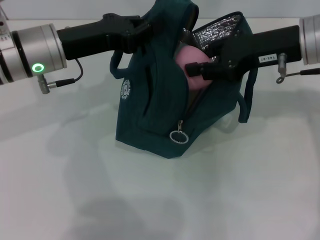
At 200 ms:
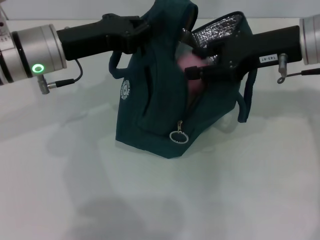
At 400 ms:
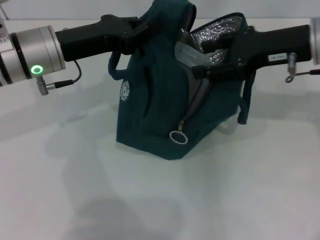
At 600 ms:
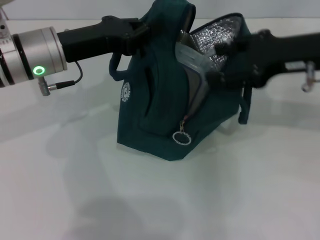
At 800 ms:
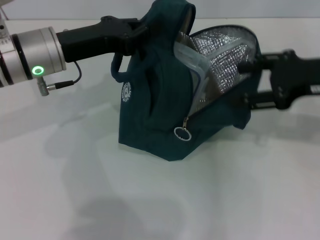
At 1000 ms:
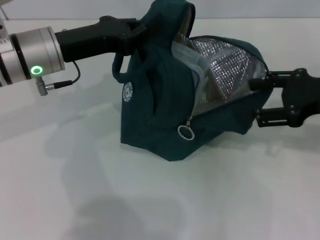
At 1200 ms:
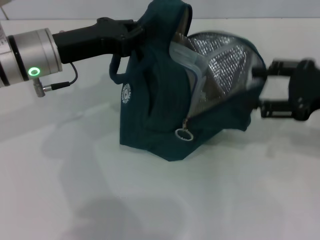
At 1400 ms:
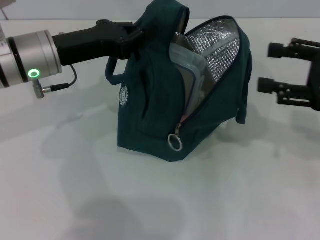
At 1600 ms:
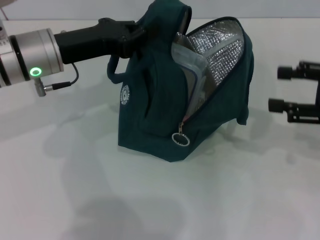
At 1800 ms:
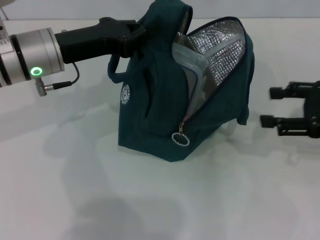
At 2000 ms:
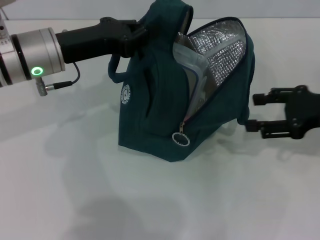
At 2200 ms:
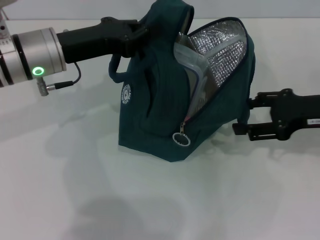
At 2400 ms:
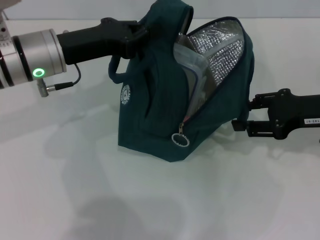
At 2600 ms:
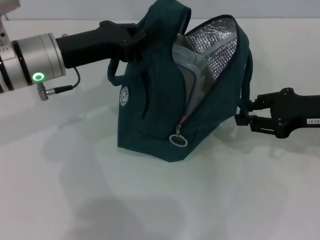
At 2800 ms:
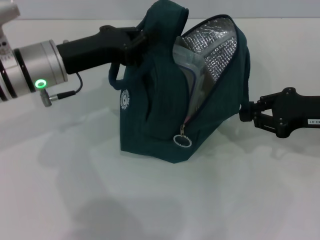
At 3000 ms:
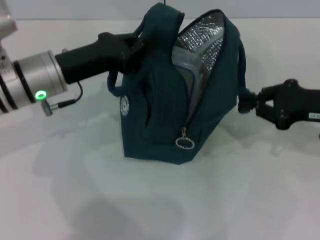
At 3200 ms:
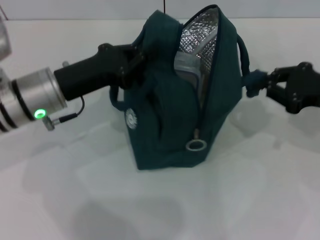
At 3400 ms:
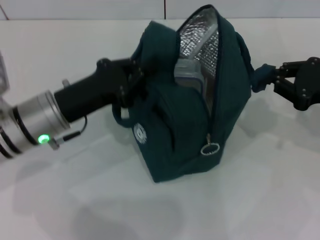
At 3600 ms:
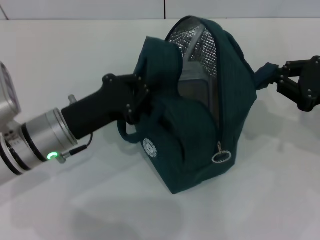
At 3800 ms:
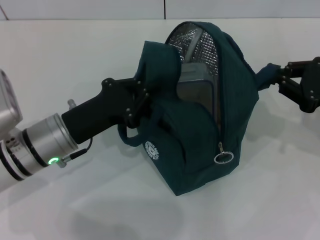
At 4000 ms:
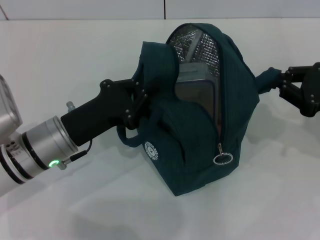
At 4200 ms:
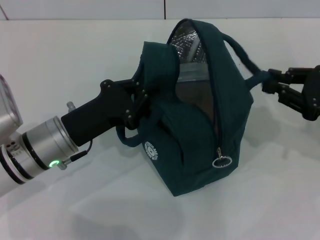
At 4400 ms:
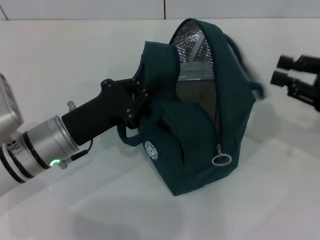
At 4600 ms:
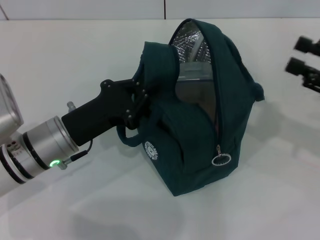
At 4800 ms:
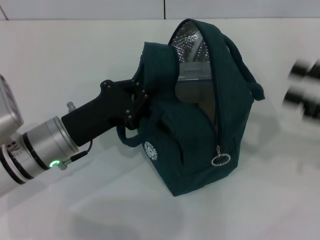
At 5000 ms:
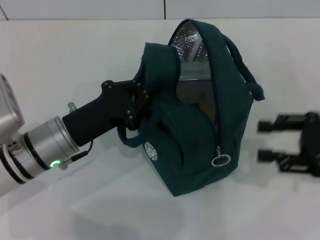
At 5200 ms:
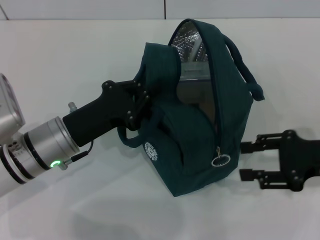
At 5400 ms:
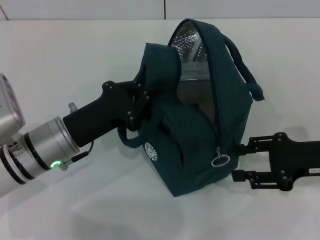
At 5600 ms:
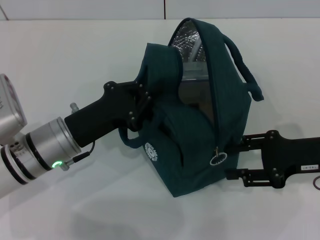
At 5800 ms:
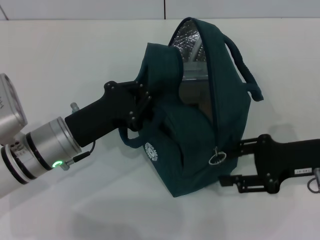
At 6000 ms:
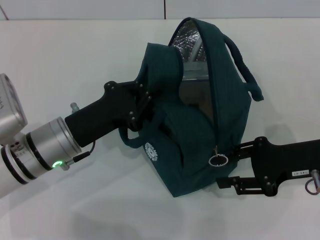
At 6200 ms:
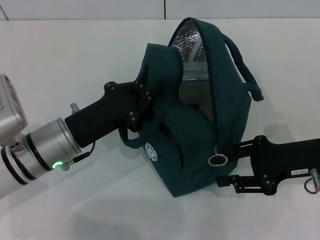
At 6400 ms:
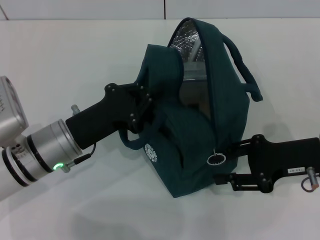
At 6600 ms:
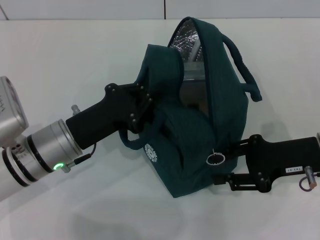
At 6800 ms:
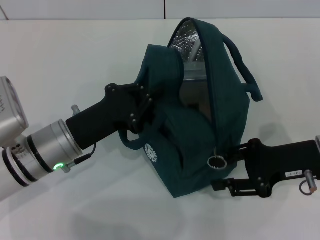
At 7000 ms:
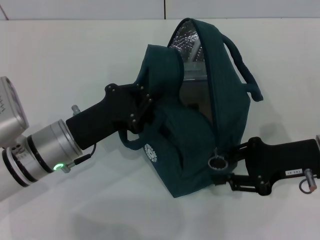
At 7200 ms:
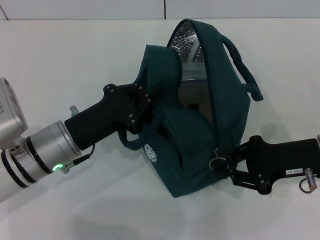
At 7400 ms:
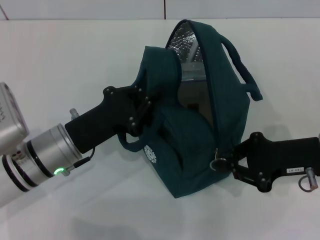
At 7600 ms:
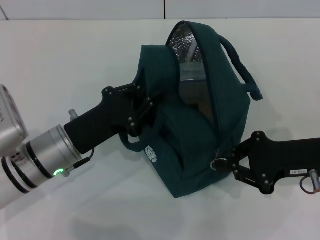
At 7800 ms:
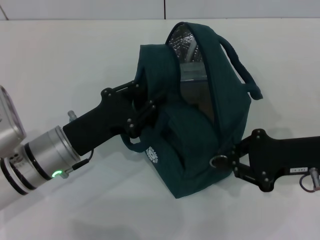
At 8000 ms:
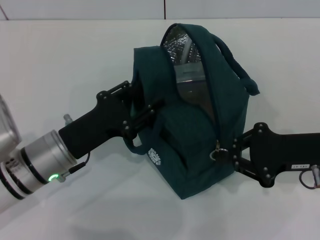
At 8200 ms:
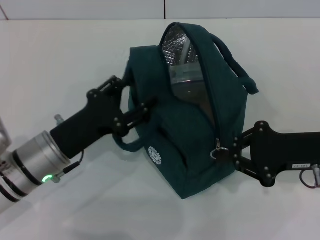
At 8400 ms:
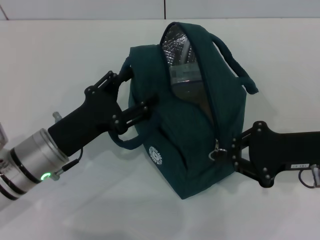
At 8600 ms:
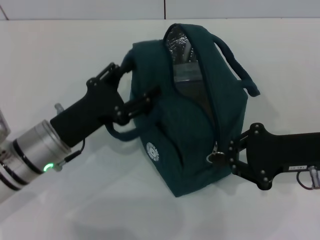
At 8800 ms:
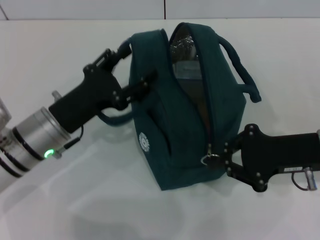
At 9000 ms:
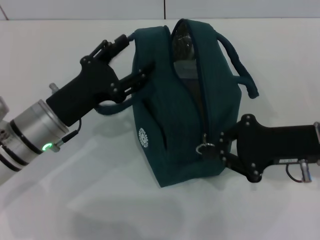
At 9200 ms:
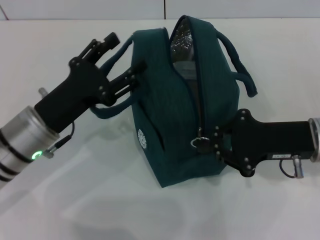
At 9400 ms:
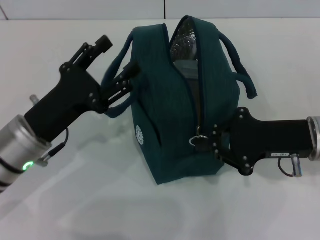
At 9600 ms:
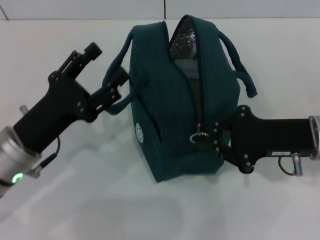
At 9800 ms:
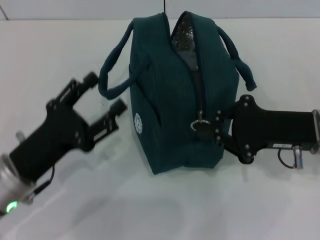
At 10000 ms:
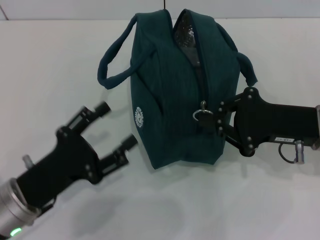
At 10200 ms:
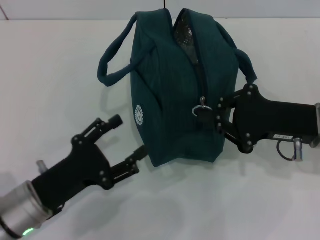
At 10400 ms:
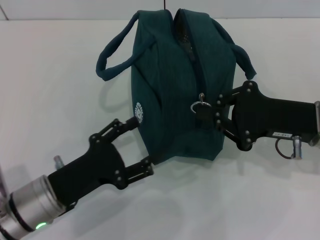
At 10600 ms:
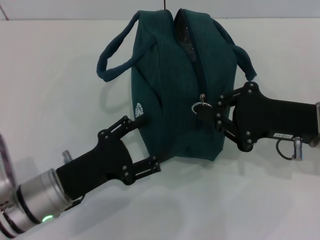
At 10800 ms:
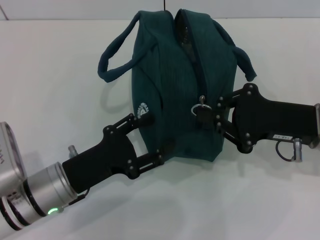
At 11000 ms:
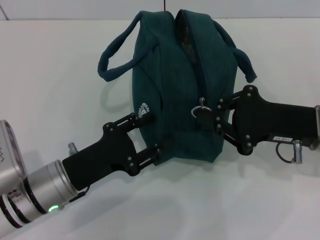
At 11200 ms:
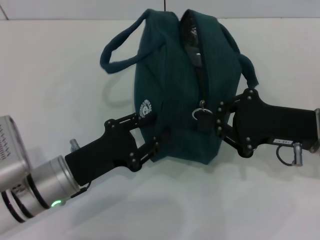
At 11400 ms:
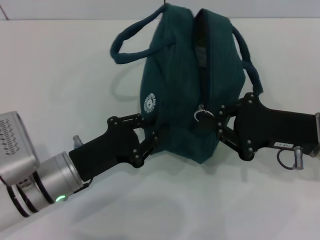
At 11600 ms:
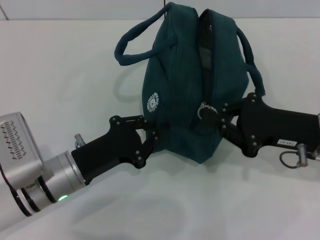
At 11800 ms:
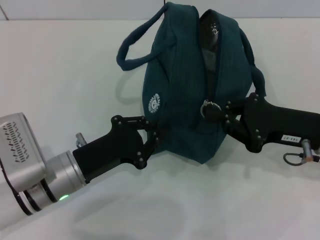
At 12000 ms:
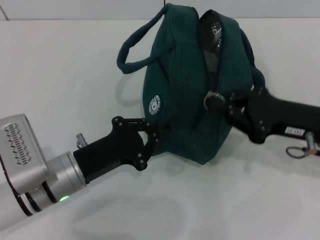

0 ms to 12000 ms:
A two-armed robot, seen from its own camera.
Step, 800 ms to 4200 ms: Hold the lunch bag with your right hand.
Step, 4600 ms to 8800 ms: Hold the lunch bag with your left hand.
0 ms to 1600 ms: The right gripper heads to the right and backward, covering roughly 15 cm, and opens.
1600 ms to 3000 ms: The right gripper goes some 5 cm downward, and closes.
3000 ms to 4400 ms: The left gripper shifts roughly 10 cm backward and downward.
4400 ms to 6000 ms: The right gripper is displaced to the left by approximately 5 cm, and opens.
6000 ms to 7600 ms: The right gripper closes.
7600 ms to 9000 ms: The left gripper opens its fingers.
9000 ms to 10400 ms: The left gripper shifts roughly 10 cm backward.
10400 ms to 12000 ms: The left gripper closes.

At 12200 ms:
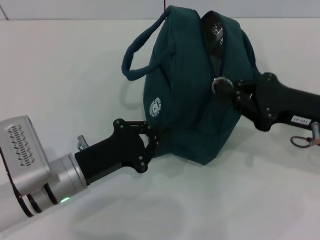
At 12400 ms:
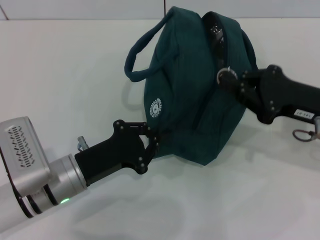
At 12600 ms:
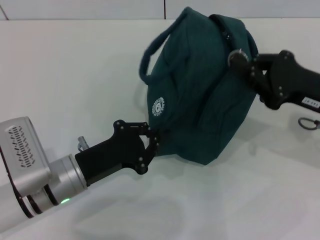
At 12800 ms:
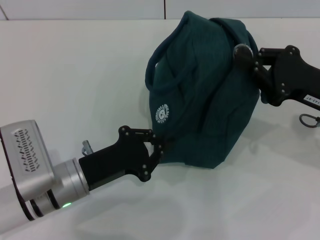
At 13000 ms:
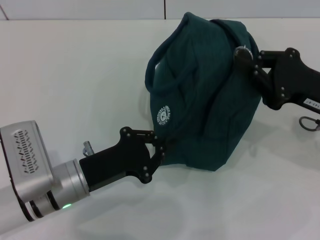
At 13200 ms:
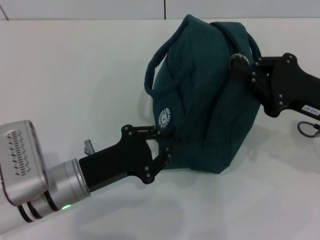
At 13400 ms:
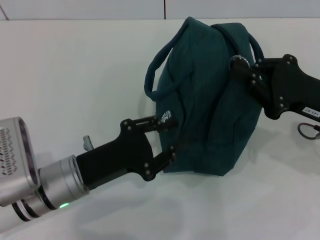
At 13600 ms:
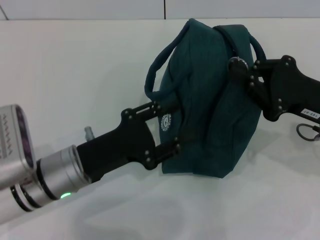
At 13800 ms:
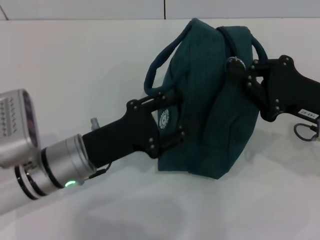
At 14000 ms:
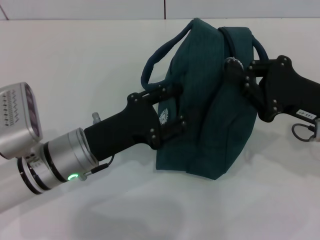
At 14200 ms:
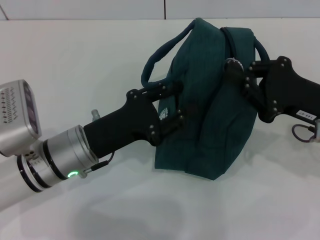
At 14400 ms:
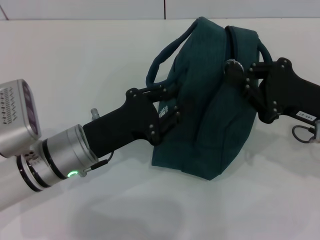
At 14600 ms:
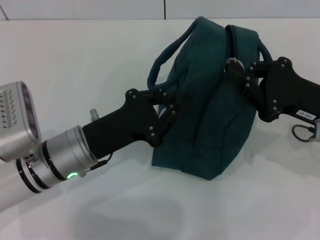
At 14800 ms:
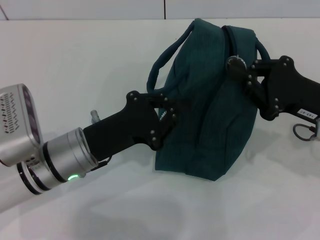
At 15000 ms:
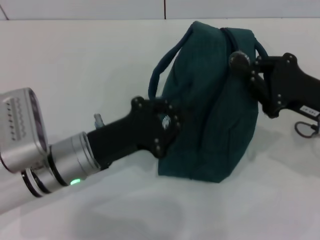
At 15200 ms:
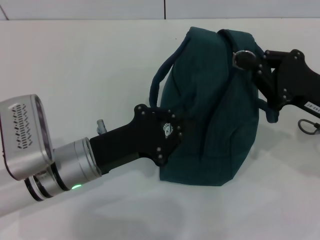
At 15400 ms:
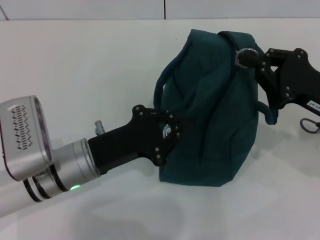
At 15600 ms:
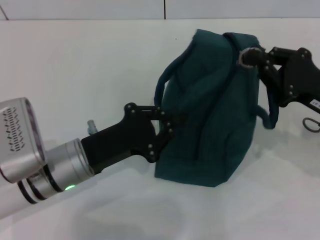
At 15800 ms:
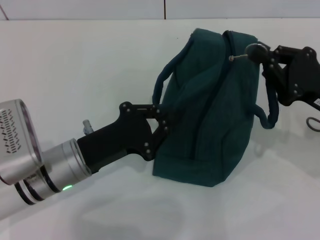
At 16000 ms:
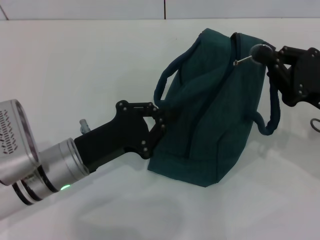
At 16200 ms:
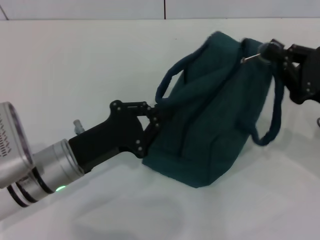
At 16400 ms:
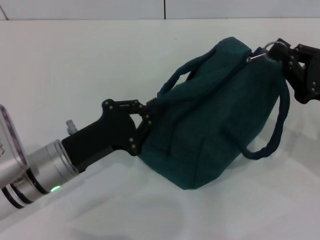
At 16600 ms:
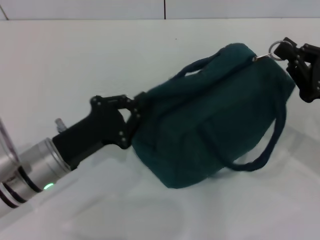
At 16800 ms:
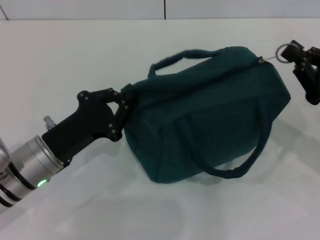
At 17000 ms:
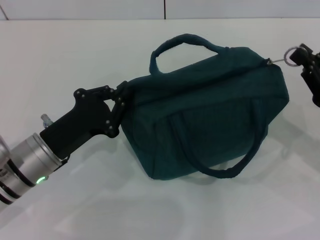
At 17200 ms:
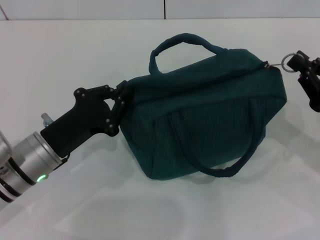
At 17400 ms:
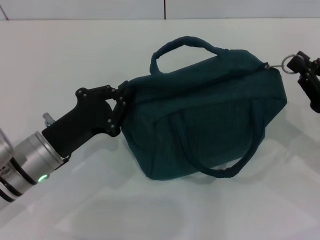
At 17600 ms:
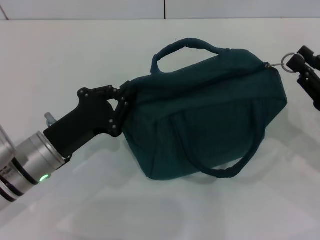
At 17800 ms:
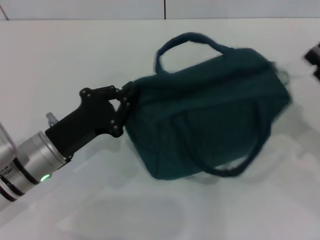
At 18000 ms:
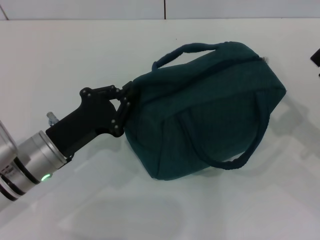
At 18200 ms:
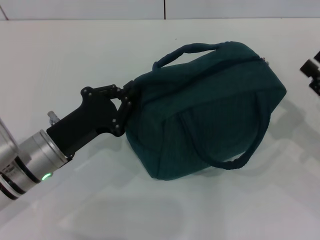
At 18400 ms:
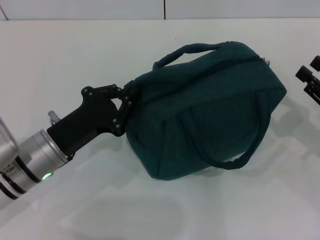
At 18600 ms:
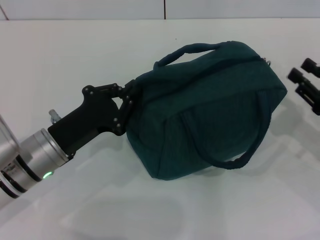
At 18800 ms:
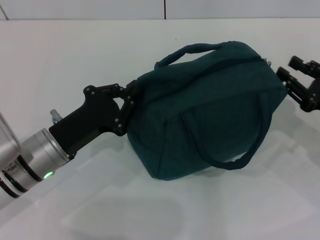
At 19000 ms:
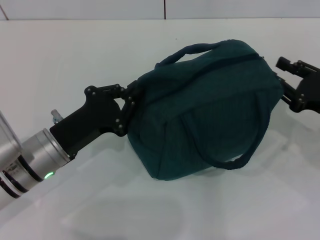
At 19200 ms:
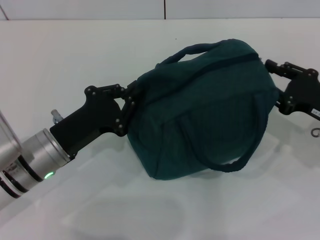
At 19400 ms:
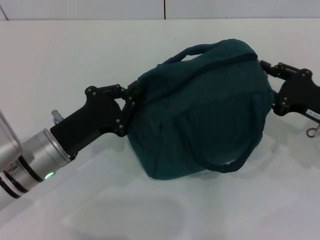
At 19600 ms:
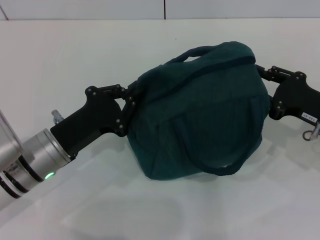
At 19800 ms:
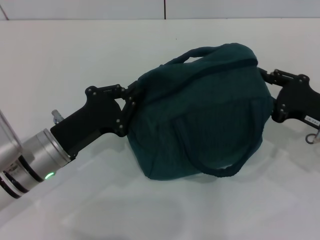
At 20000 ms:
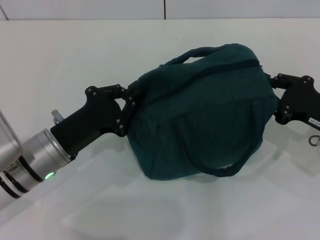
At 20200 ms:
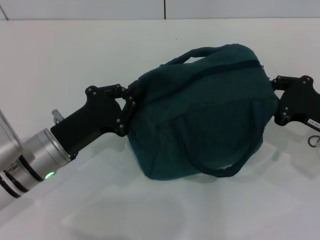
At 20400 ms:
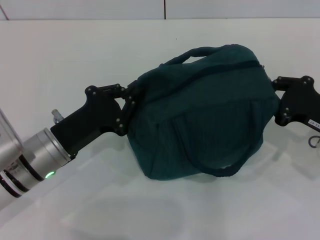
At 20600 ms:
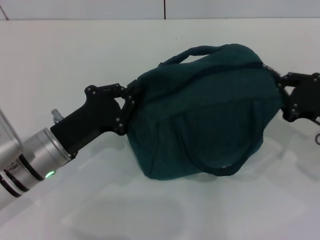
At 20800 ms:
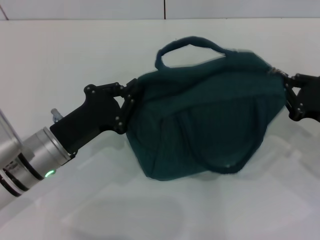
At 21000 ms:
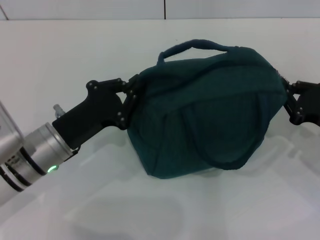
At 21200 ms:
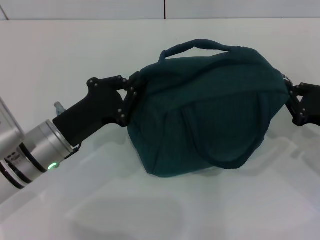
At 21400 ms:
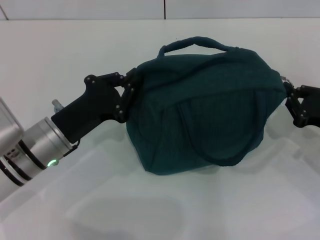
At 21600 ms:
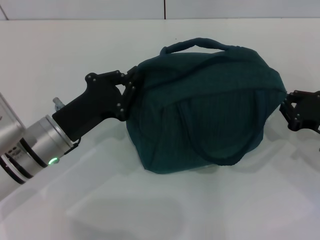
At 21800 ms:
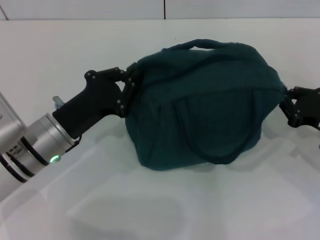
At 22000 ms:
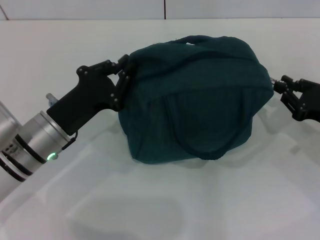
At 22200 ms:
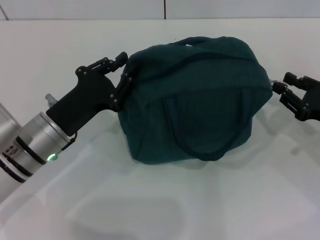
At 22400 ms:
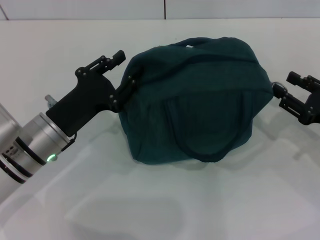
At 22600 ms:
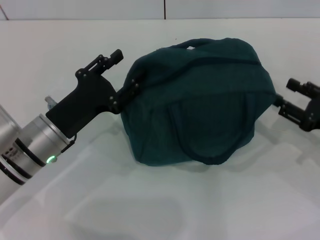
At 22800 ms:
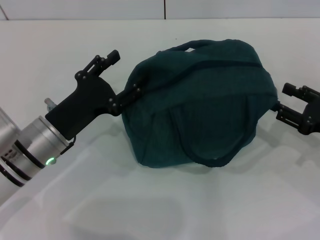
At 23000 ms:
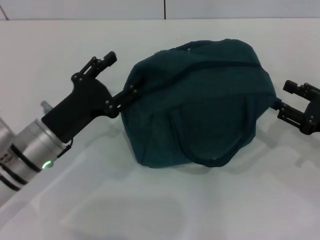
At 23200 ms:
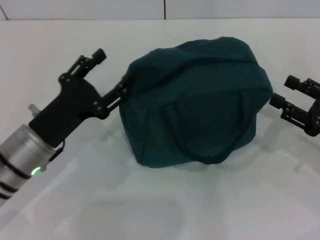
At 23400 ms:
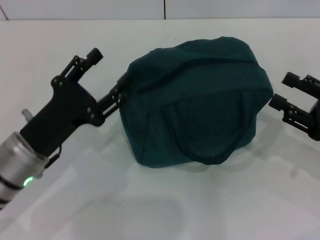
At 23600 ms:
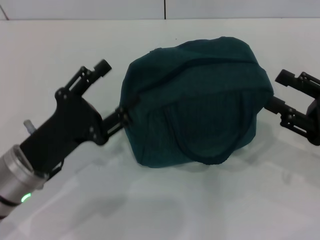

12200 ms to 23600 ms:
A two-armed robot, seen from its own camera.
Step, 12200 ms to 22200 ms: Hold the lunch bag with your left hand.
Step, 22400 ms to 23200 ms: Zip up the lunch bag with your right hand.
12200 ms to 15000 ms: The grippers move only a little.
16400 ms to 17800 ms: The grippers move only a little.
17800 ms to 19400 ms: The right gripper moves roughly 5 cm.
19400 ms to 20800 ms: The right gripper closes.
20800 ms to 22200 ms: There are only small adjustments of the grippers.
22200 ms to 23600 ms: The right gripper shifts by some 5 cm, and opens its fingers. Meanwhile the left gripper heads backward, covering about 5 cm, and opens up.
